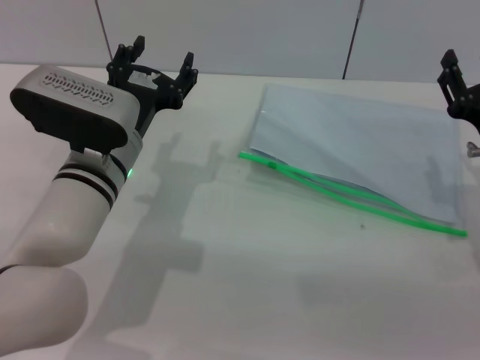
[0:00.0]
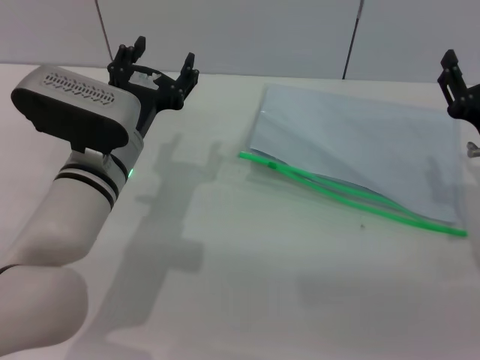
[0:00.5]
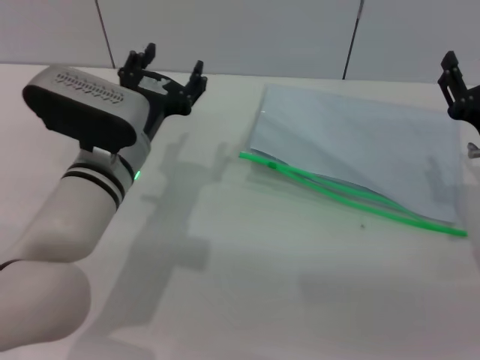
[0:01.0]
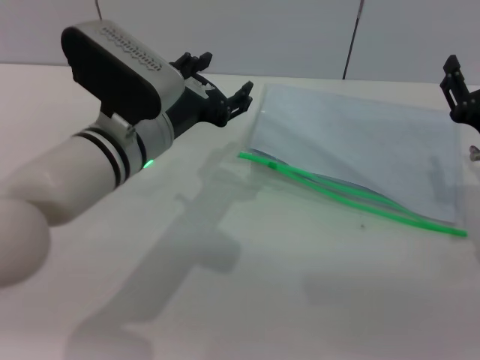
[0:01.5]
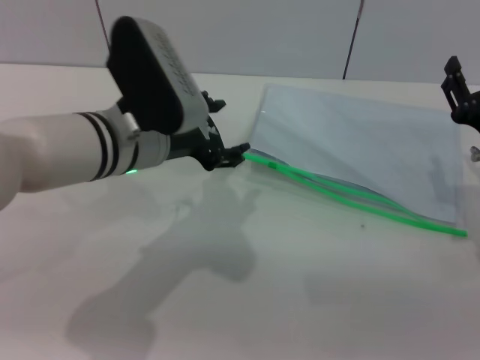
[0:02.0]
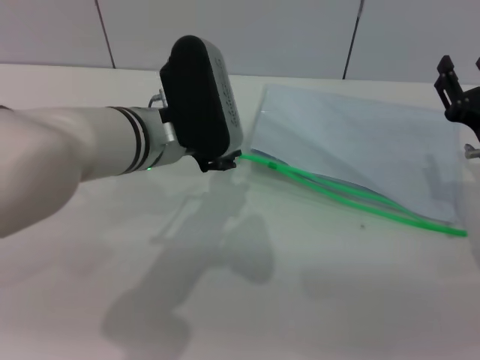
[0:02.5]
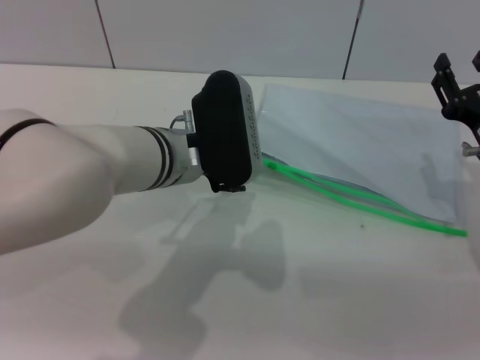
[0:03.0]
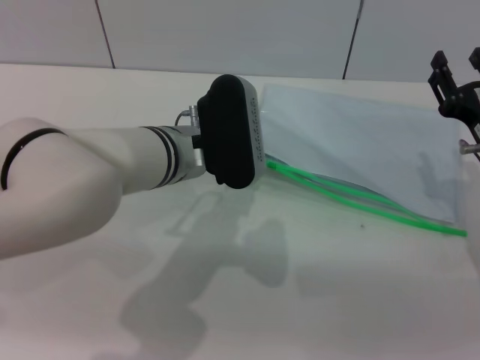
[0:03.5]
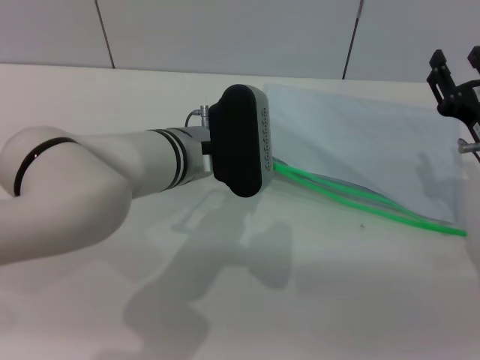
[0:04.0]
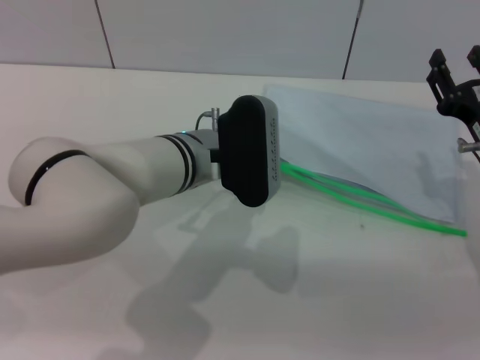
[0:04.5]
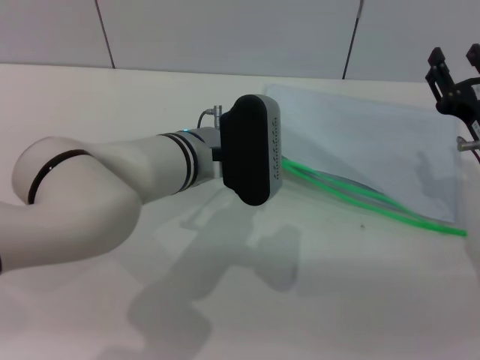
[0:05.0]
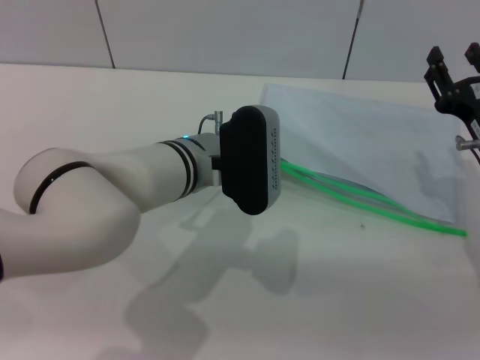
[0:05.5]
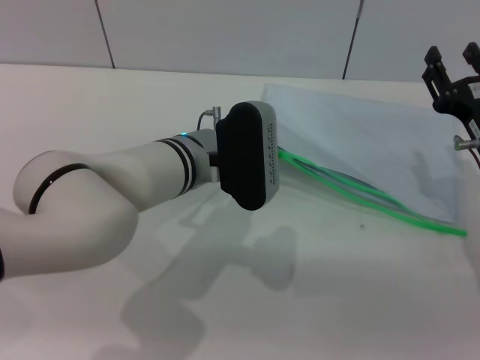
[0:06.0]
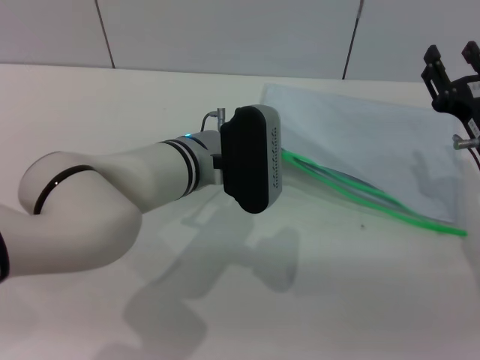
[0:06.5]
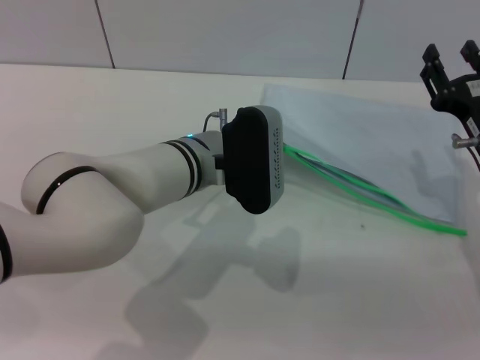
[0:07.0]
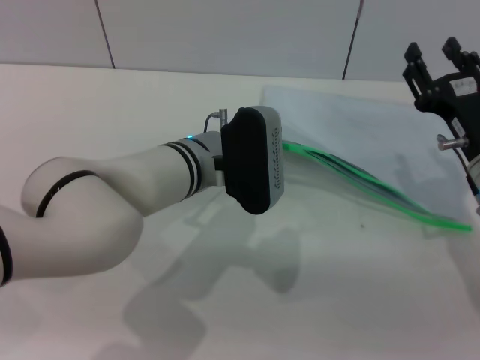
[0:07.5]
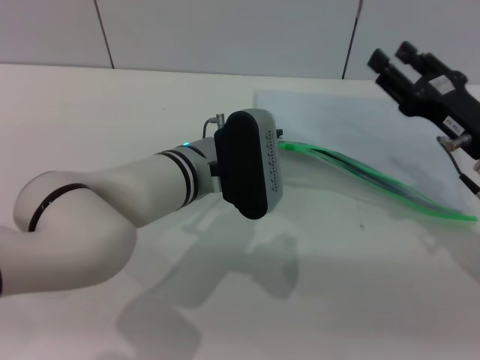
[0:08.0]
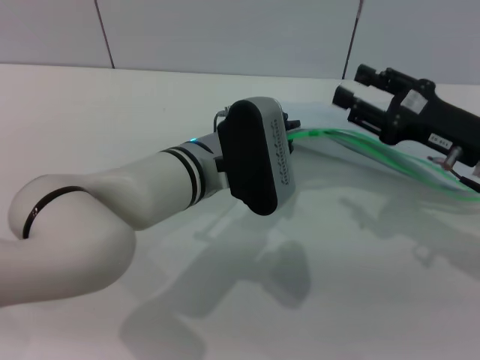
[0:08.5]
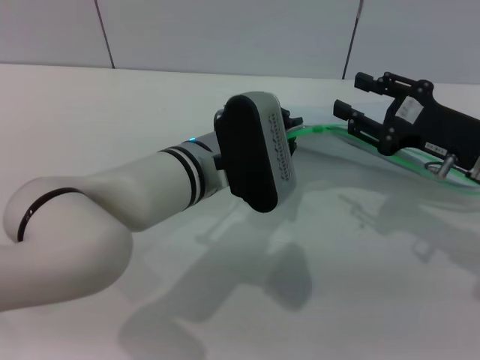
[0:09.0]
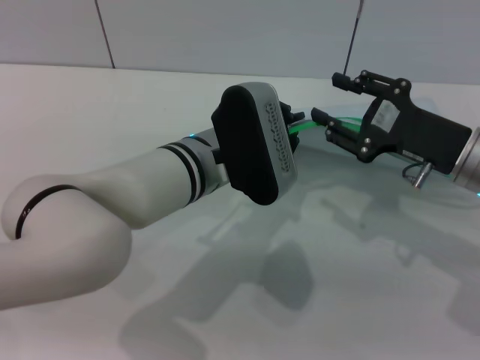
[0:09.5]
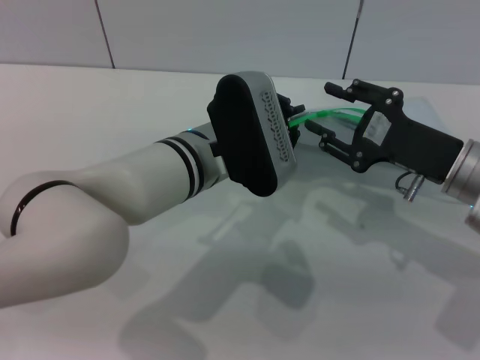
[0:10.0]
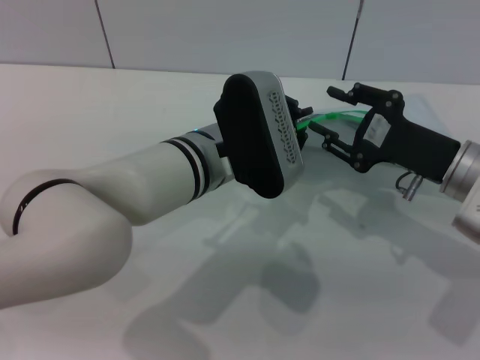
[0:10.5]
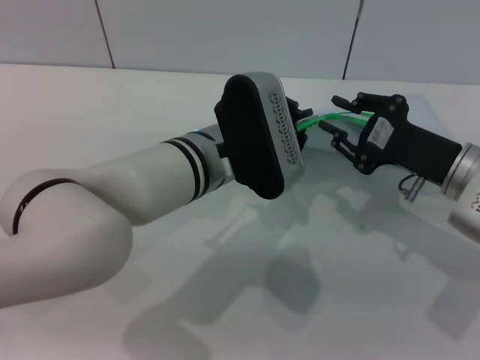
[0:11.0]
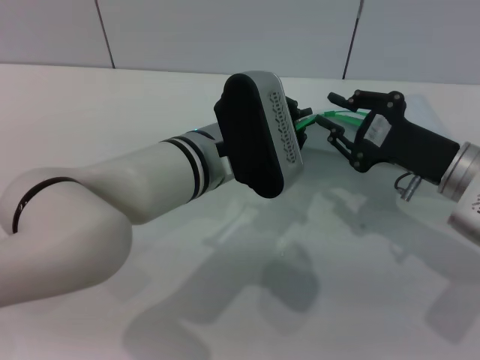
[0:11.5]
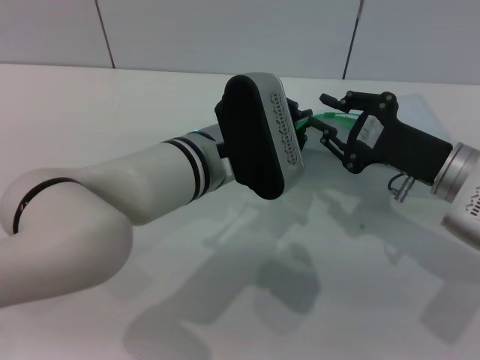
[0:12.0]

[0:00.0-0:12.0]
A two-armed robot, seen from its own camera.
Step, 0:00.0 to 0:08.5: Pick up the transparent plastic bag with the left gripper.
0:00.0 to 0:02.0: The left gripper shifts about 5 cm upward.
0:02.0 to 0:04.0: The left gripper moves to the right, about 5 cm.
0:04.0 to 0:06.0: The grippers make only small movements.
0:06.0 to 0:08.0: The left gripper closes.
0:10.0 to 0:12.0: The right gripper closes.

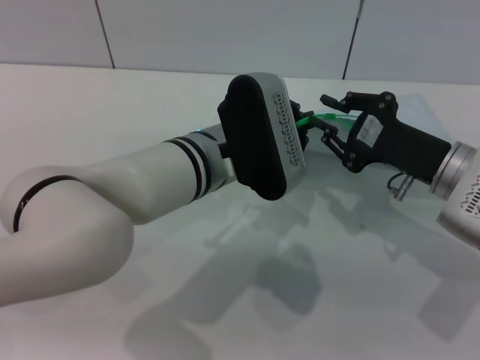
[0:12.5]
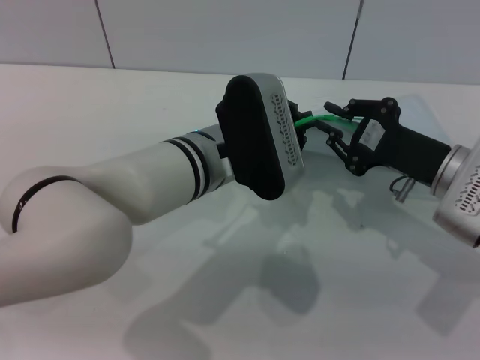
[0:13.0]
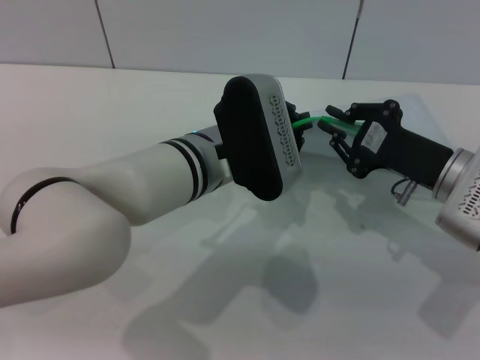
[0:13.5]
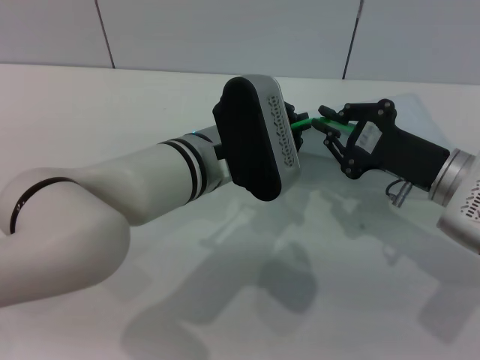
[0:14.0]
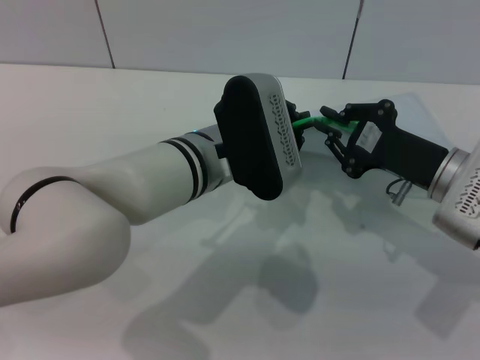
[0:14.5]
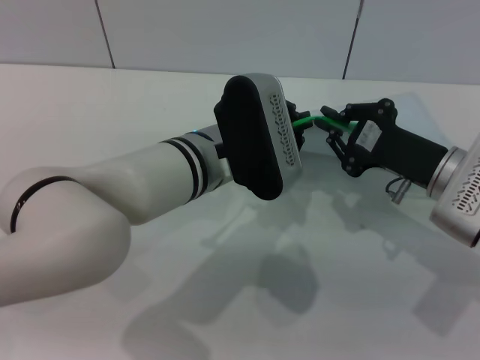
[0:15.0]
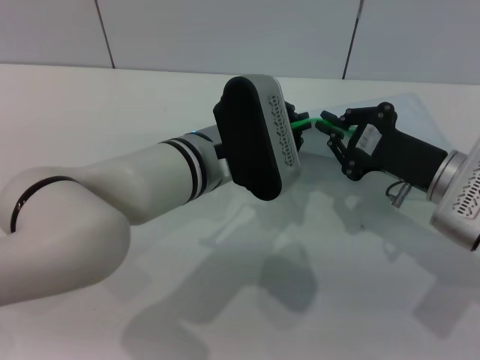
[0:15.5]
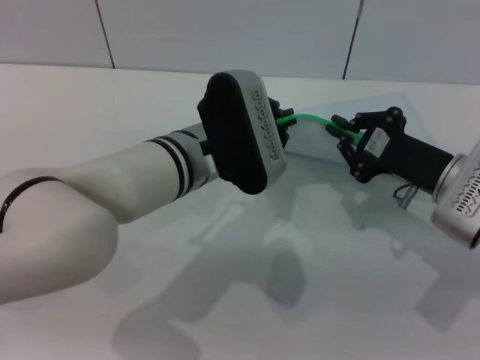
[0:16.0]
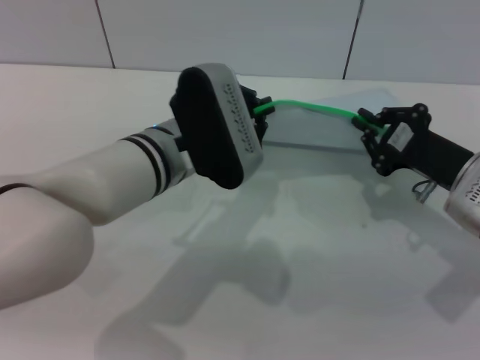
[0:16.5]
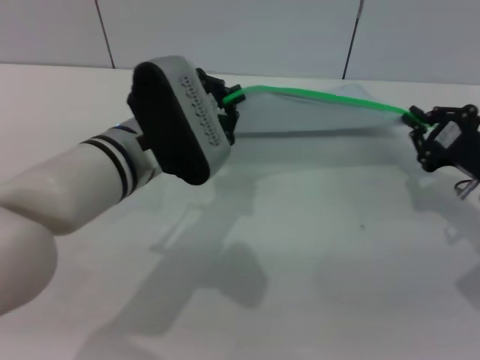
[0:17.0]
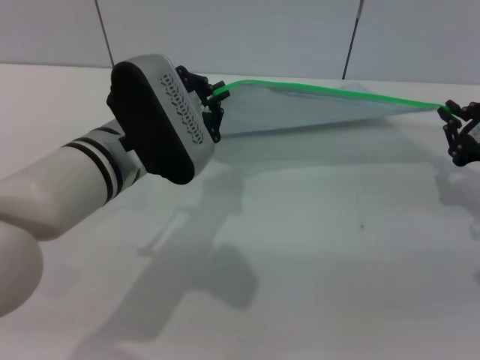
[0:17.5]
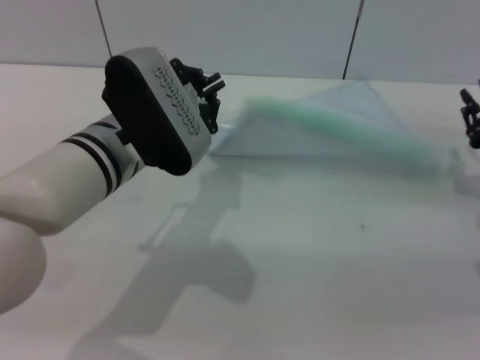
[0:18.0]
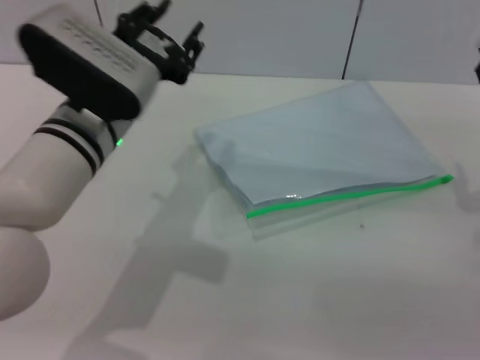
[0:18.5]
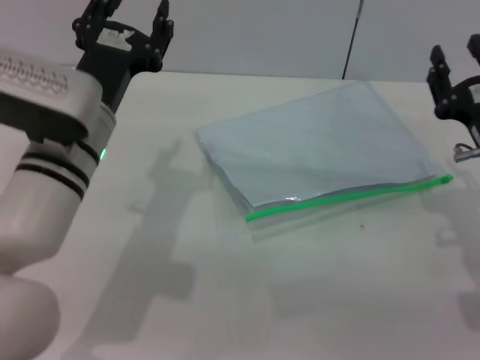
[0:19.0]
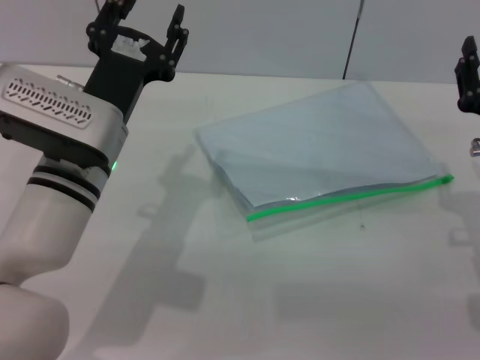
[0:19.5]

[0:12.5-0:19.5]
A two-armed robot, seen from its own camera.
Step, 0:12.5 to 0:17.5: Pulling up the zipper on the transparent plastic bag with the right gripper to close it.
0:12.5 to 0:14.5: Both grippers stay put.
0:14.5 to 0:16.0: The two grippers keep their place.
0:16.0 to 0:17.5: The left gripper heads to the left, covering roughly 5 cm, while the right gripper heads to the right, covering approximately 10 cm.
0:17.5 to 0:19.5: The left gripper opens its fingers; the right gripper goes some 5 cm to the left, and opens up.

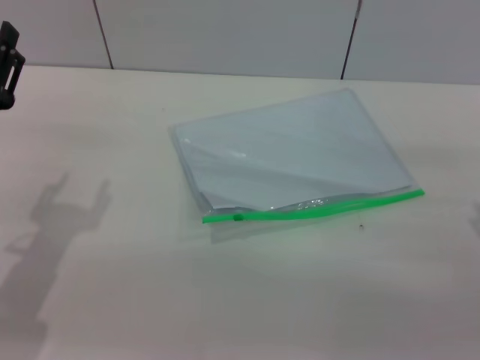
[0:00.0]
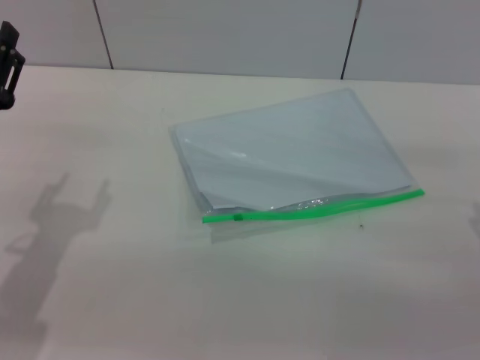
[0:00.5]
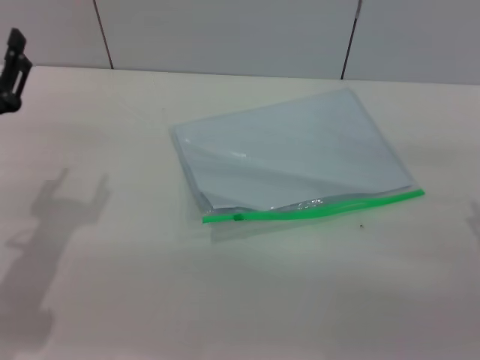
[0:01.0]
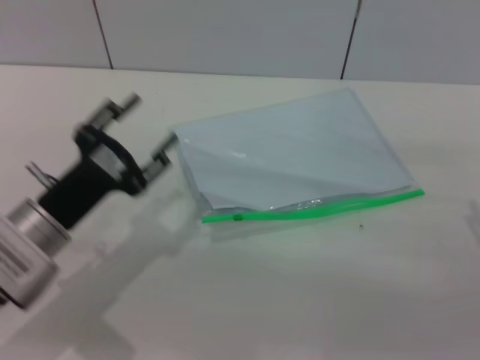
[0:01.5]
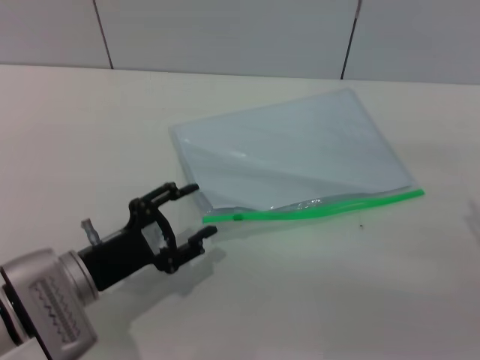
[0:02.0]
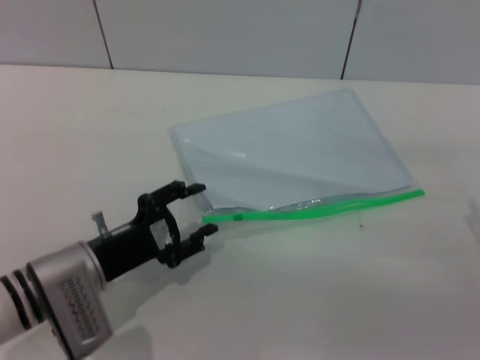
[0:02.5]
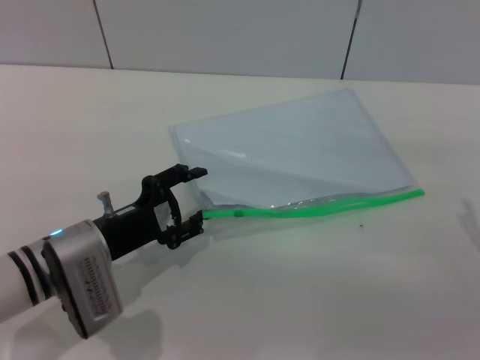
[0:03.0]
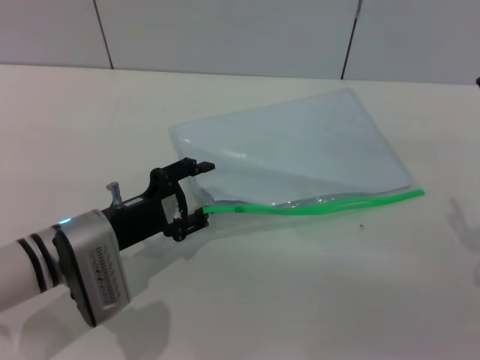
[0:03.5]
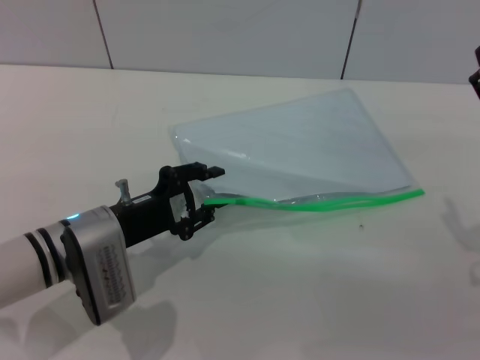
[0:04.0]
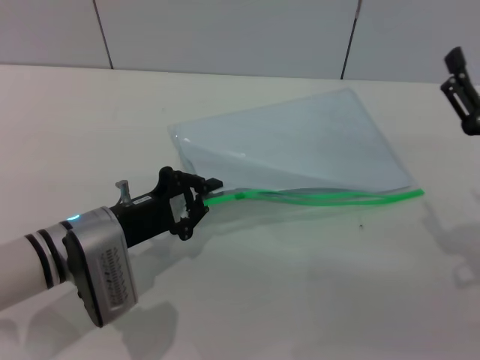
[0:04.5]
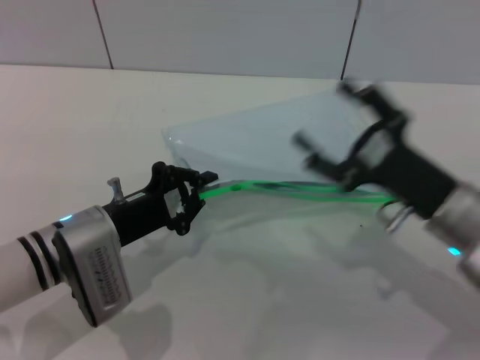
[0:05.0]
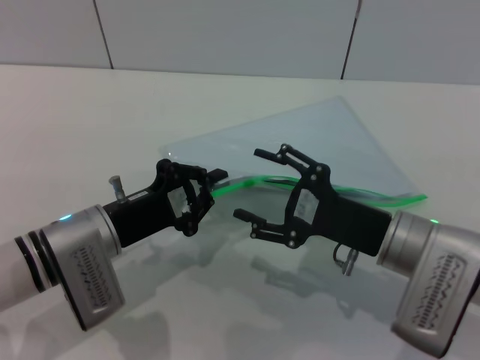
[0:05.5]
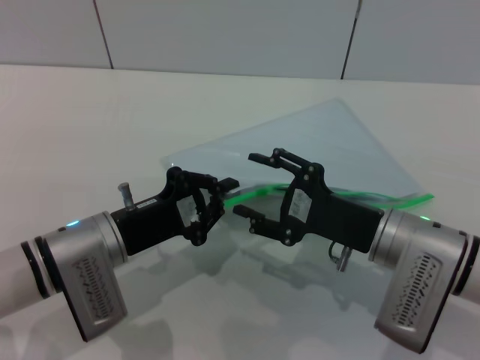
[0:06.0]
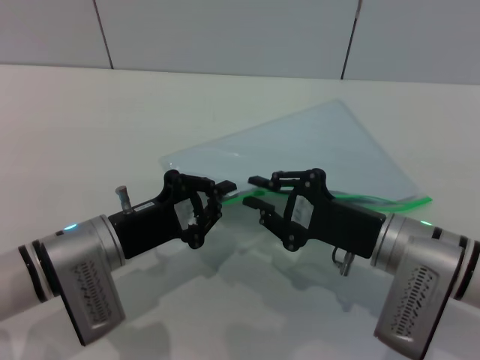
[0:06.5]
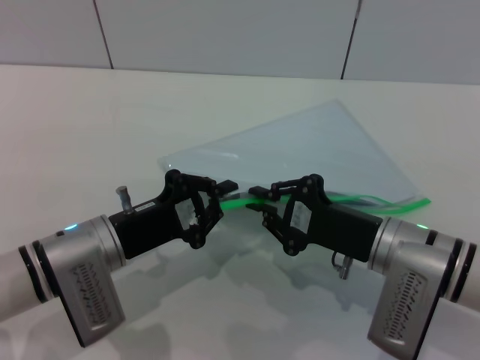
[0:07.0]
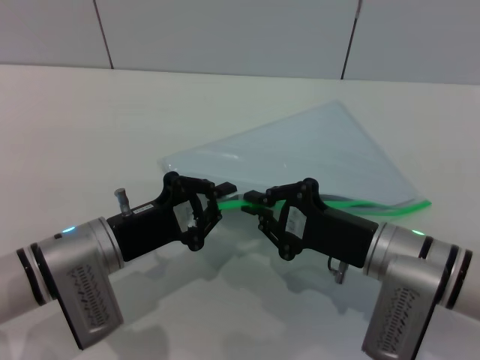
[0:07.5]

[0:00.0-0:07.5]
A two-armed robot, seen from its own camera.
Step, 0:00.0 to 0:04.5: Pick up the transparent plastic bag with the left gripper.
0:00.0 to 0:02.0: The left gripper is displaced to the right and downward by approximately 10 cm.
0:02.0 to 0:04.0: The left gripper shifts some 5 cm forward.
0:04.0 to 0:05.5: The right gripper moves to the left, about 10 cm; the left gripper closes.
0:05.5 to 0:07.5: The right gripper closes its fingers.
